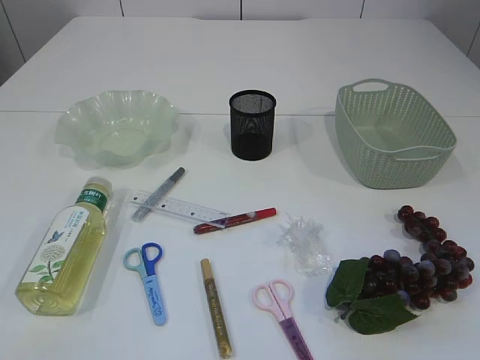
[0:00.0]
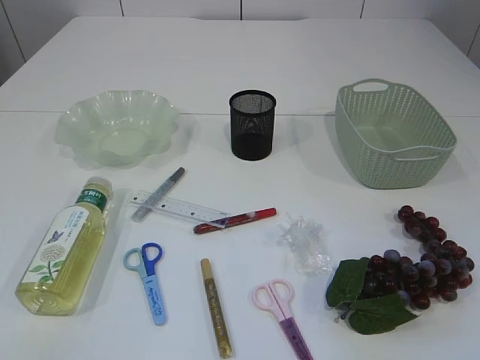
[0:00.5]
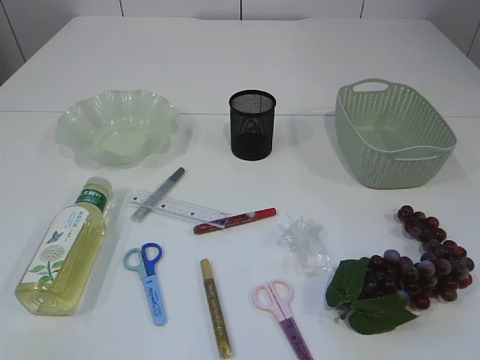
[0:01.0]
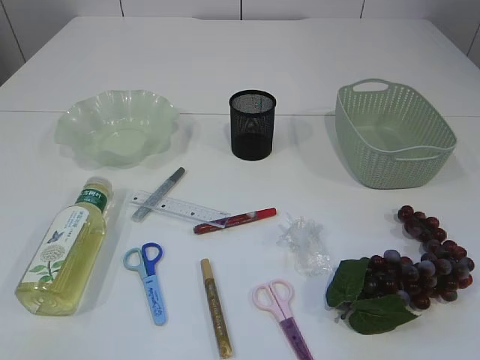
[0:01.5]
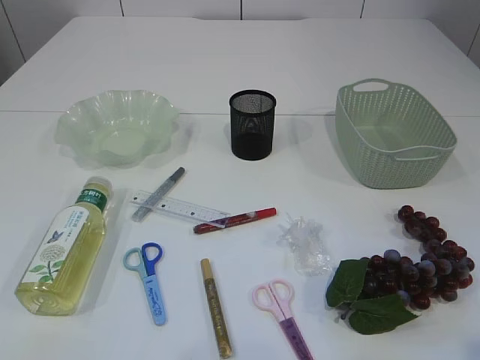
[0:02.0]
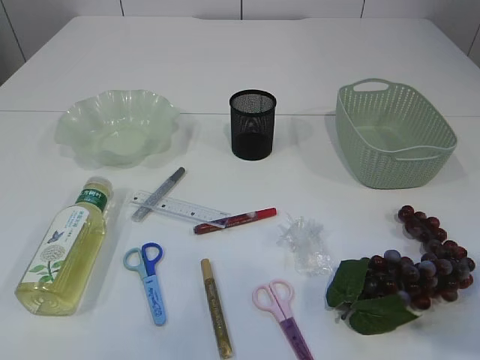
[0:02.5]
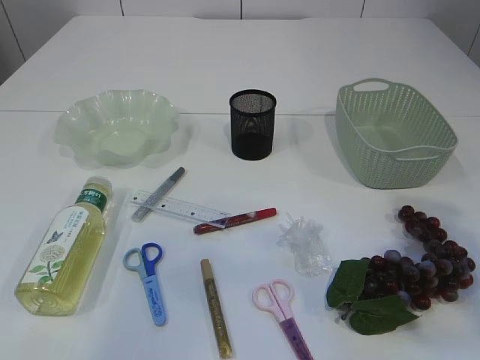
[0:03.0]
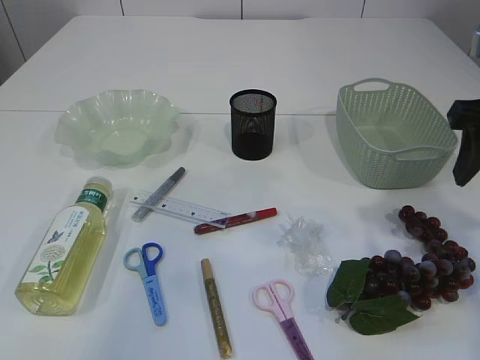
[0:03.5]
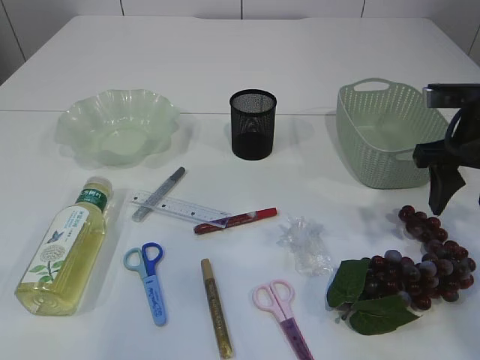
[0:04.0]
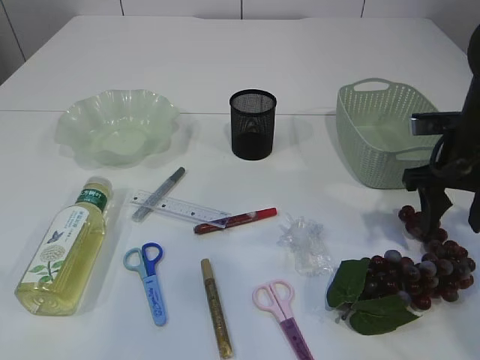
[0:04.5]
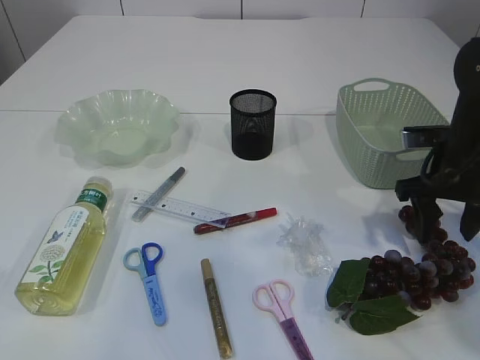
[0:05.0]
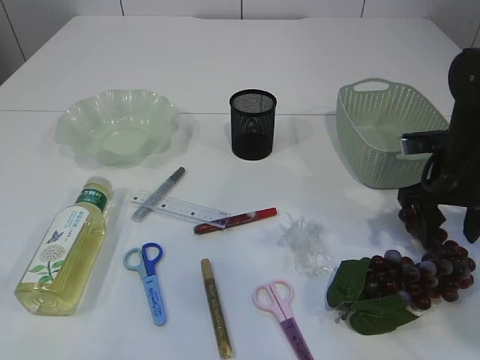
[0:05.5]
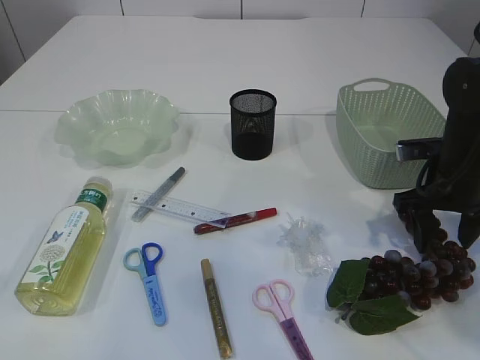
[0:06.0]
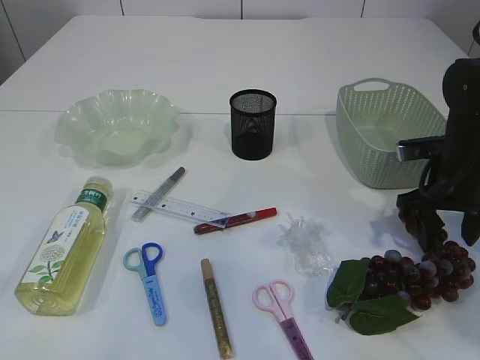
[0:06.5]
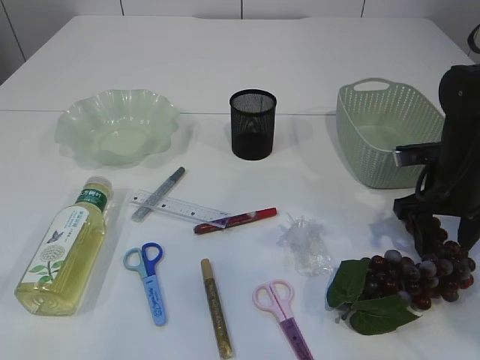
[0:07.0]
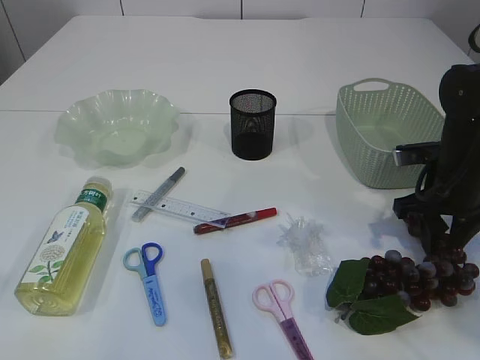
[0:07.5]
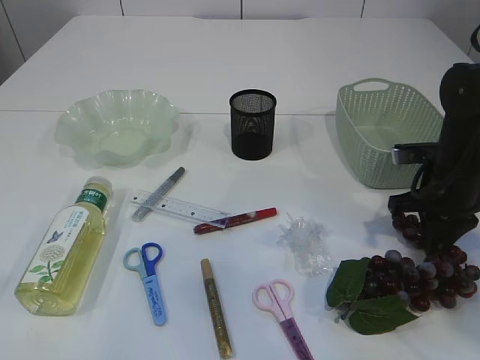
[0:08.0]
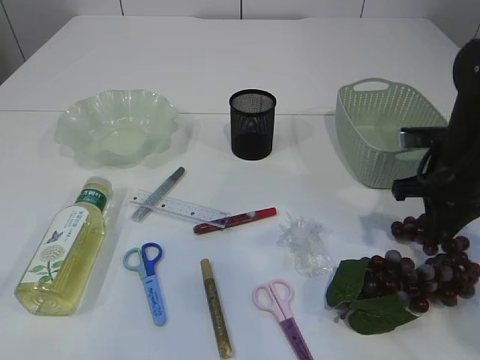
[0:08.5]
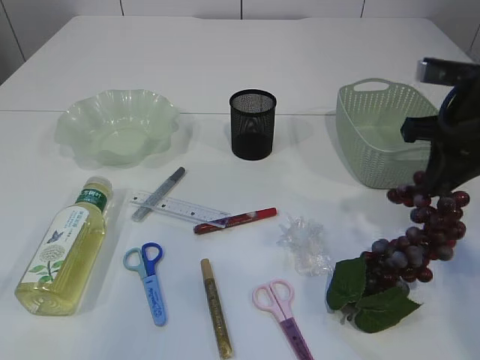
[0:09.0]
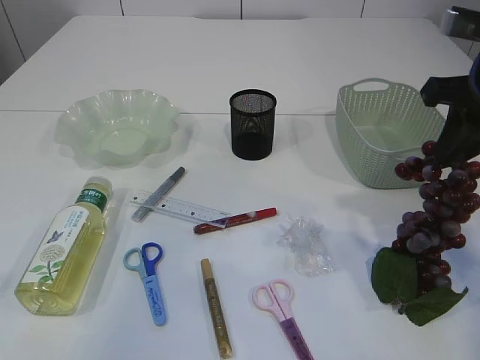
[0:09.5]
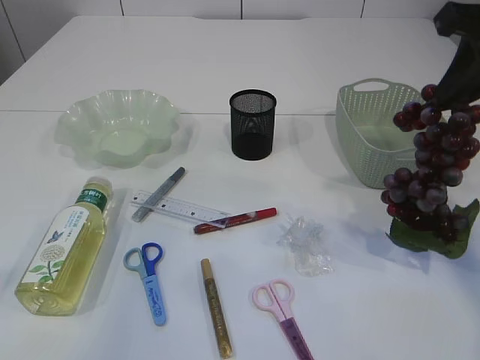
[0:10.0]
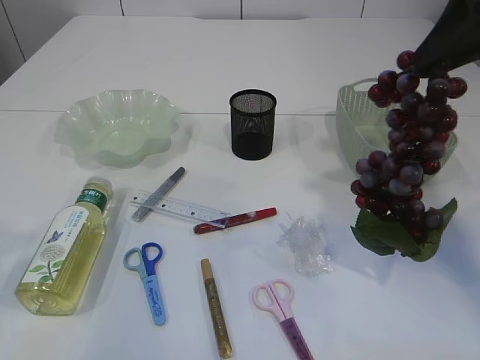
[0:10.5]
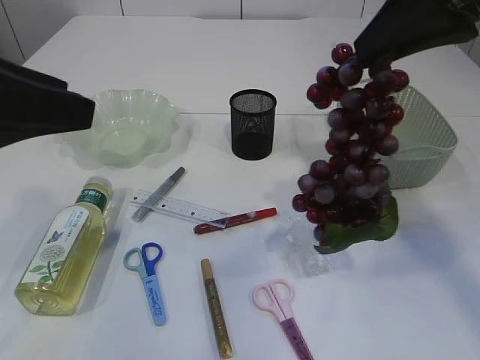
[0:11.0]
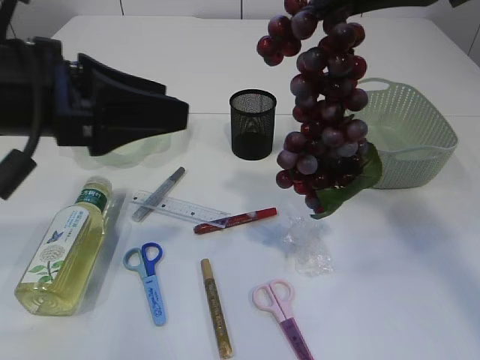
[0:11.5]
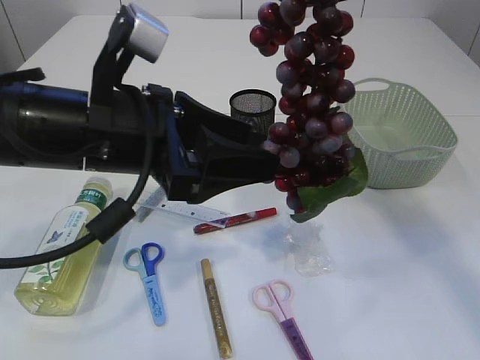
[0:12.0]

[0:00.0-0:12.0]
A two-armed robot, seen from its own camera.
Step, 0:00.0 to 0:09.5: Pick up the grapes.
0:02.0 to 0:04.0: The right gripper moves forward, about 30 cm; the left gripper shifts some 15 cm forward and upward, and opens its fingers.
0:04.0 to 0:06.0: The right gripper shifts roughly 10 cm downward.
0:06.0 to 0:08.0: The right gripper closes up.
0:08.0 to 0:10.0: The right gripper goes about 20 cm upward.
0:10.0 to 0:12.0: The right gripper goes some 10 cm to the left and upward. The left gripper travels to the right, forward and downward by some 25 cm.

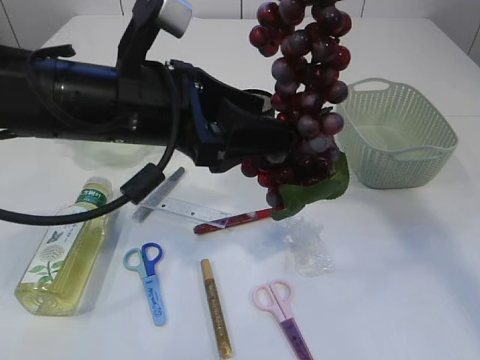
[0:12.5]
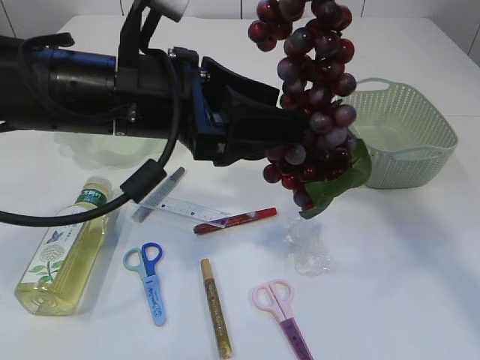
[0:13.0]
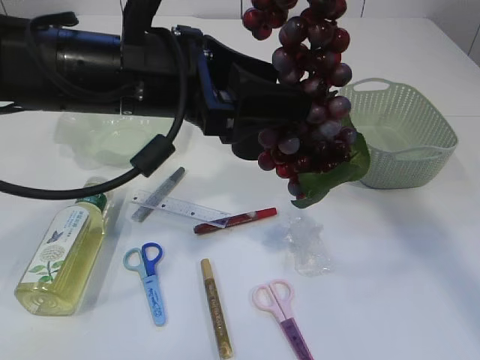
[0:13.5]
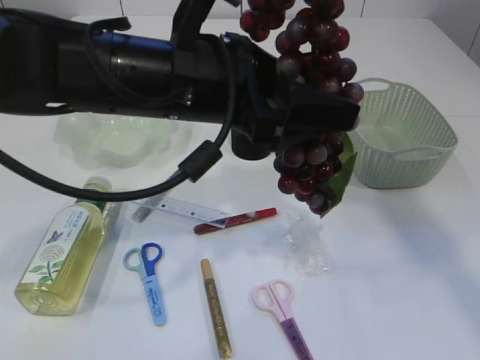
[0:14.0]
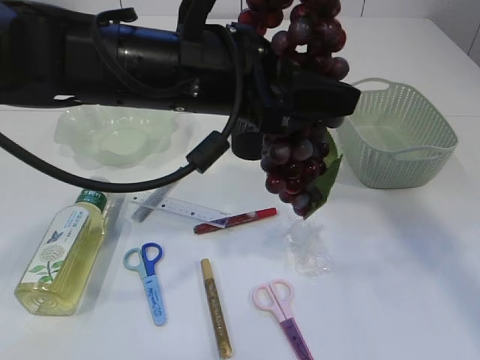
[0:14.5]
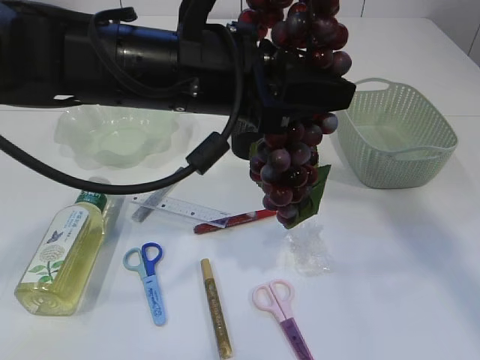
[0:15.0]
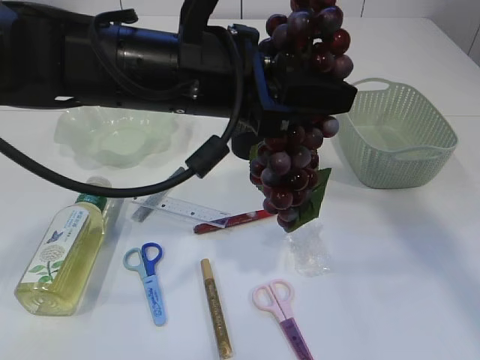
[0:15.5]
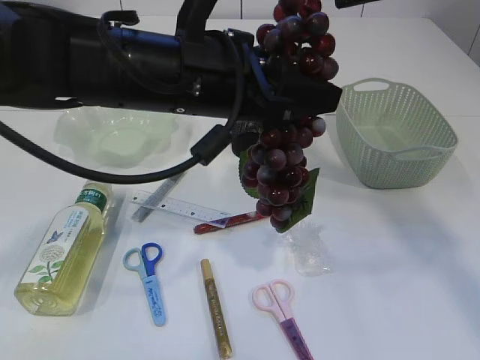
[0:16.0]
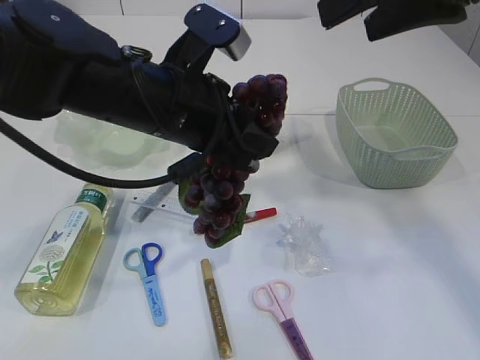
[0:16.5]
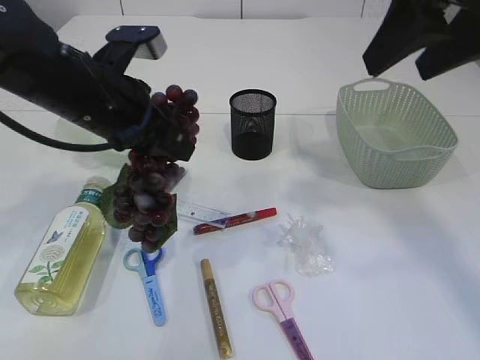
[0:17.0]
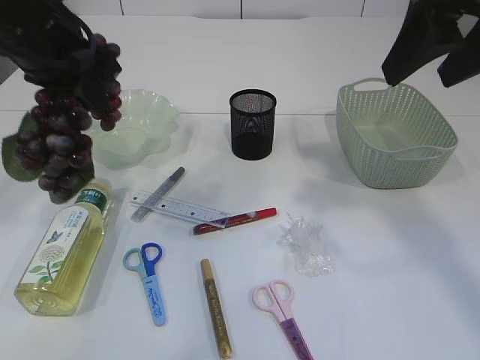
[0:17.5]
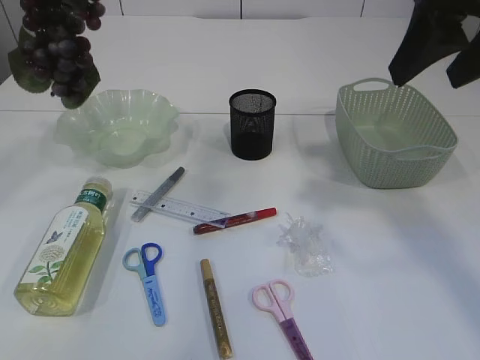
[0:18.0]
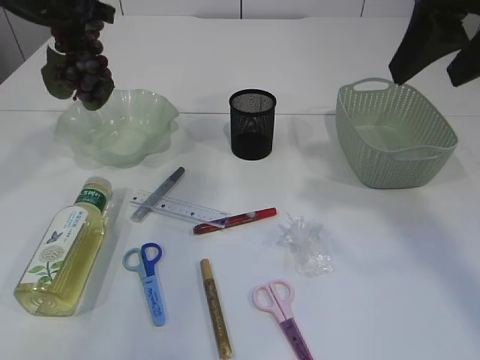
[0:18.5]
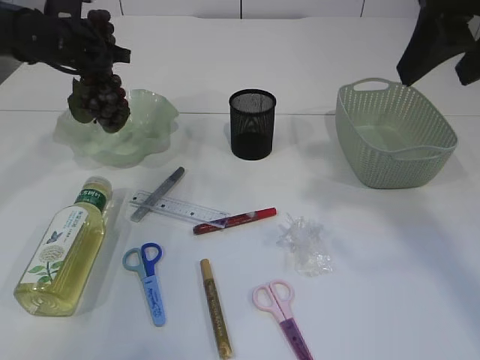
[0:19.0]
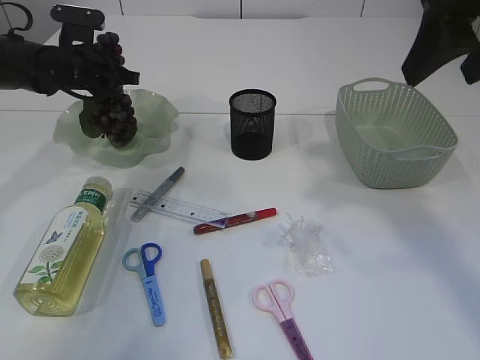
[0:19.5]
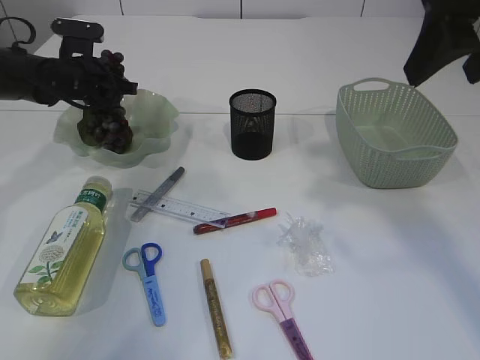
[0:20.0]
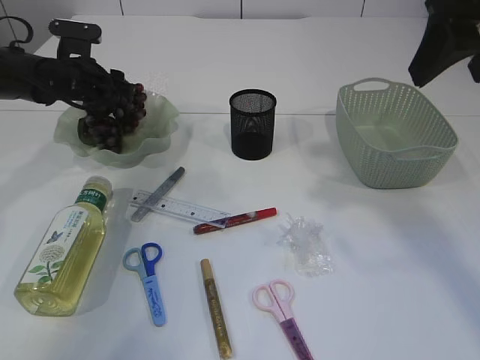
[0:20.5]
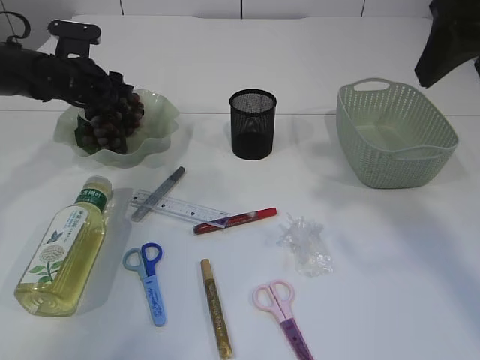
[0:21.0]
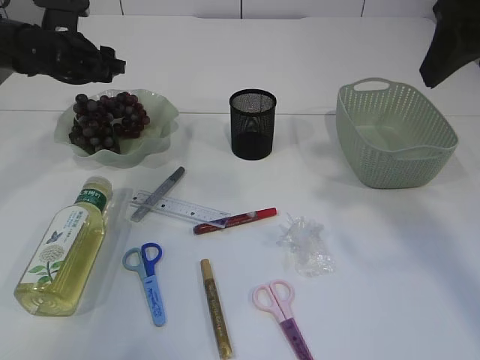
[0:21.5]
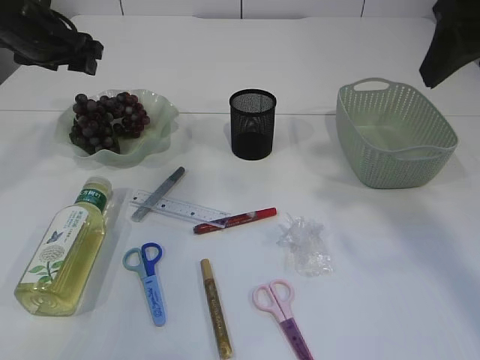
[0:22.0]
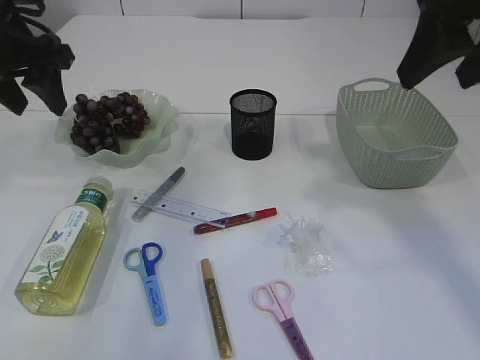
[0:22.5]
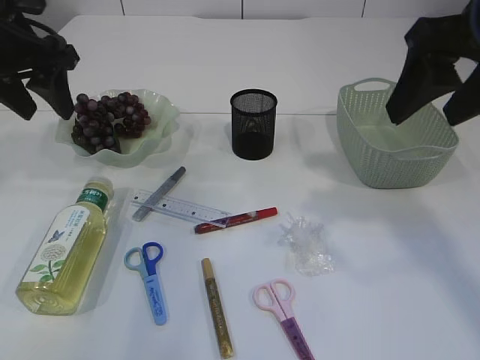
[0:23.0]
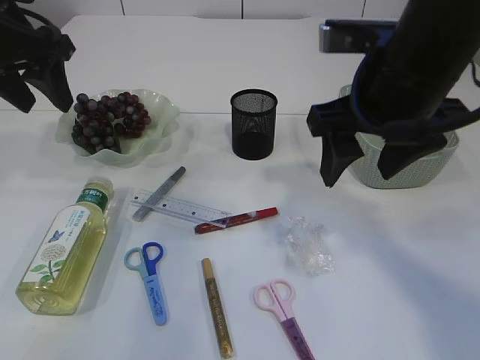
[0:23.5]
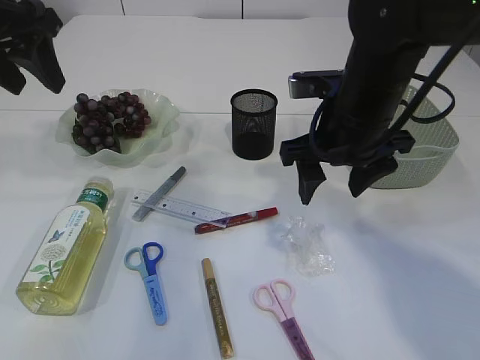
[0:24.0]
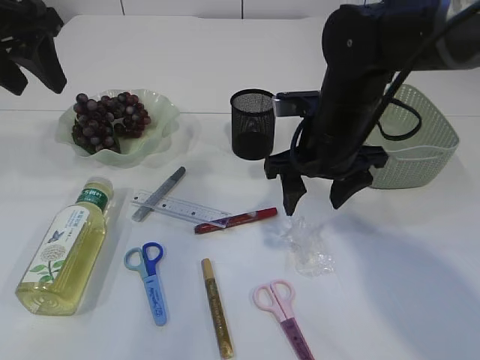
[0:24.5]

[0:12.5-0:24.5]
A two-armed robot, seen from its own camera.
Step, 0:12.5 to 0:16.5: Hand over the grapes.
Step, 0:17.0 to 0:21.5: Place the grapes in the plate.
0:12.5 to 0:14.5: The left gripper moves some 5 cm.
0:14.5 to 0:16.5: The right gripper opens up. Meanwhile the left gripper closes.
0:16.5 to 0:18.5: The left gripper moves to the left and forward, about 25 cm.
0:18.5 to 0:20.5: The left gripper moves downward, roughly 15 cm, and opens its fingers.
0:20.5 to 0:22.5: The left gripper shifts some 20 cm upward and backward.
0:22.5 to 0:24.5: The right gripper goes roughly 20 cm downward, to the left and forward.

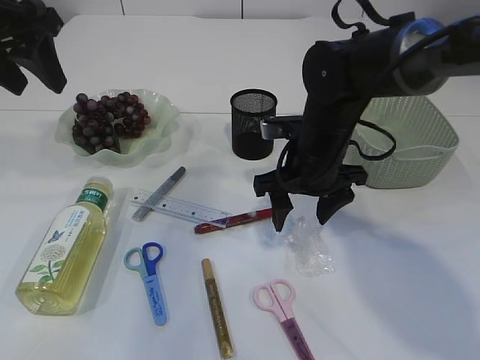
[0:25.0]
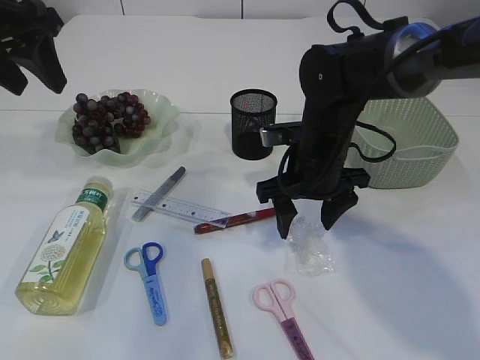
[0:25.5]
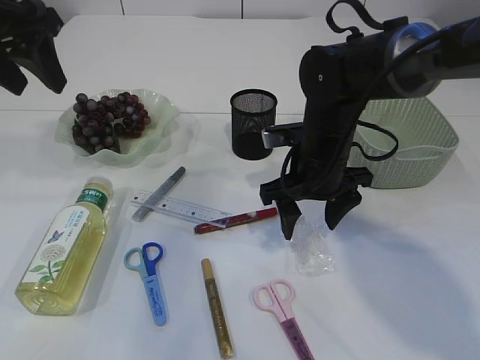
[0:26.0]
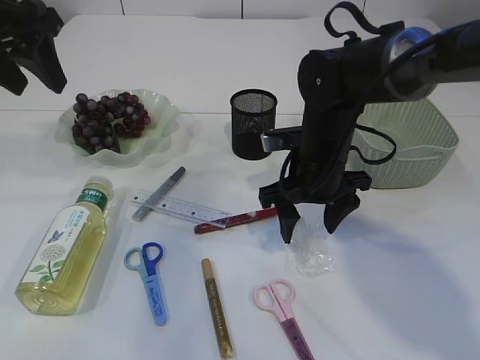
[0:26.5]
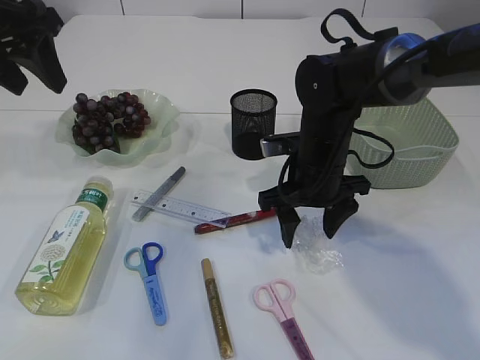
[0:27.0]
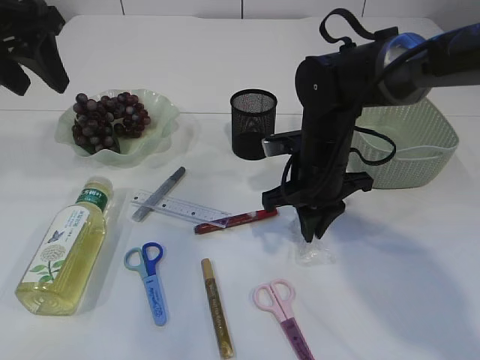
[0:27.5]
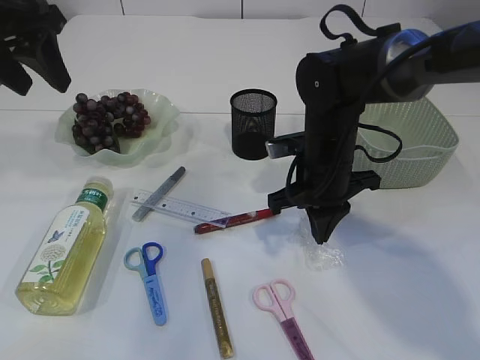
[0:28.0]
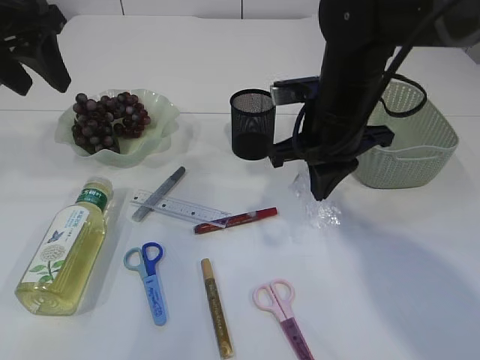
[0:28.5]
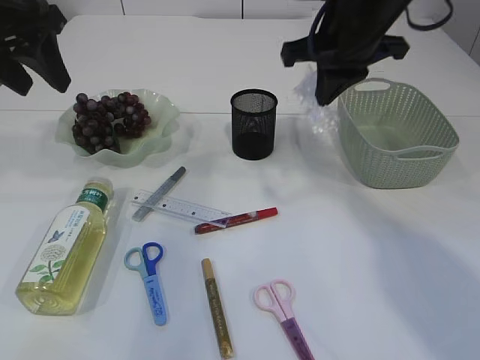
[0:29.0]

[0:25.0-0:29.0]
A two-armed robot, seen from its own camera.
Step, 0:25.0 to 0:28.5: Pick up the plastic.
0:25.0 to 0:27.0: There are only small adjustments of the grippers.
0:27.0 to 0:29.0: The right gripper heads upward, covering approximately 15 cm, and closes its fingers.
